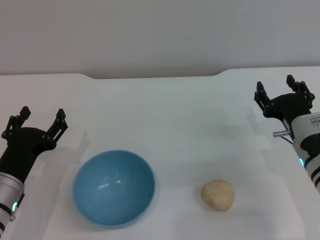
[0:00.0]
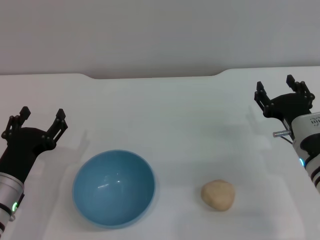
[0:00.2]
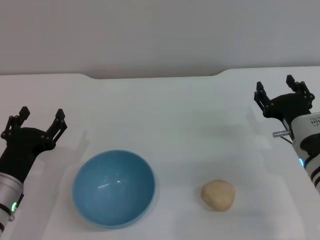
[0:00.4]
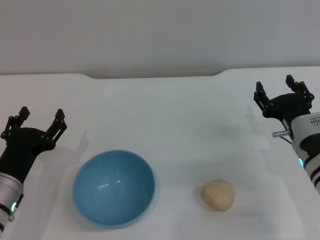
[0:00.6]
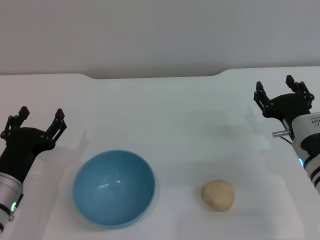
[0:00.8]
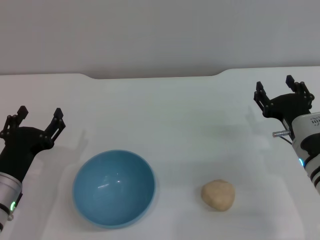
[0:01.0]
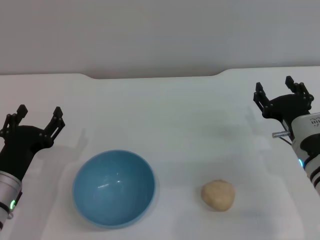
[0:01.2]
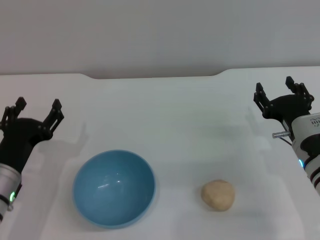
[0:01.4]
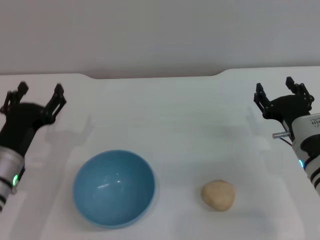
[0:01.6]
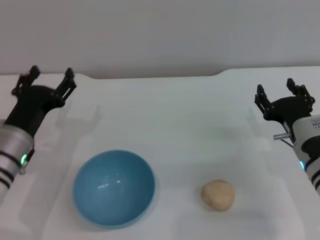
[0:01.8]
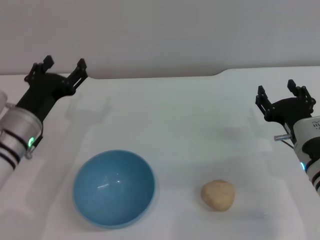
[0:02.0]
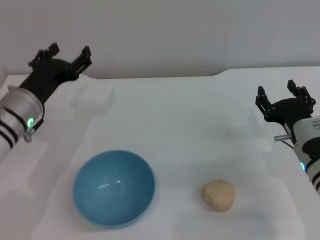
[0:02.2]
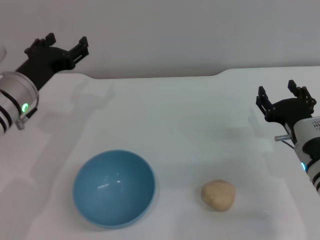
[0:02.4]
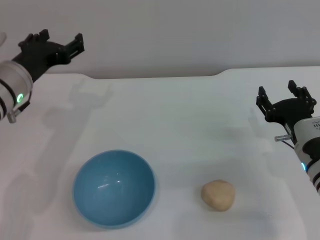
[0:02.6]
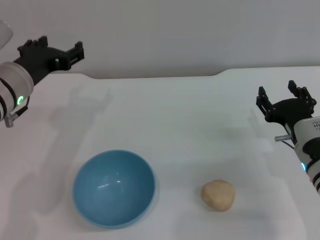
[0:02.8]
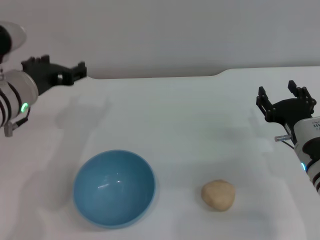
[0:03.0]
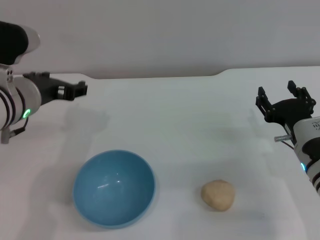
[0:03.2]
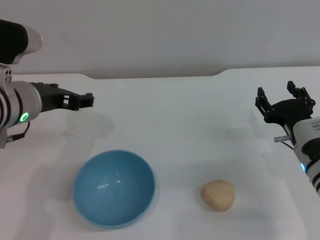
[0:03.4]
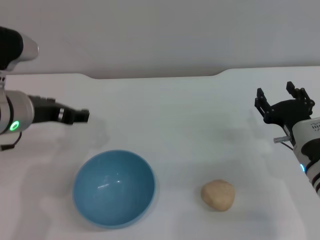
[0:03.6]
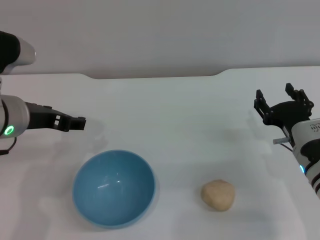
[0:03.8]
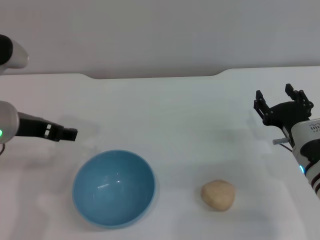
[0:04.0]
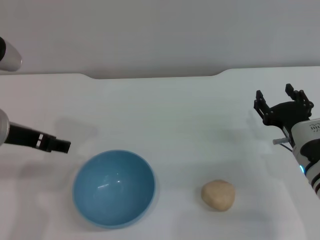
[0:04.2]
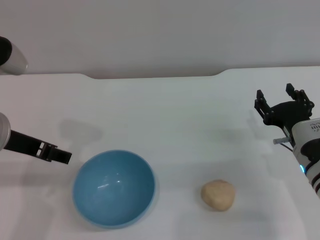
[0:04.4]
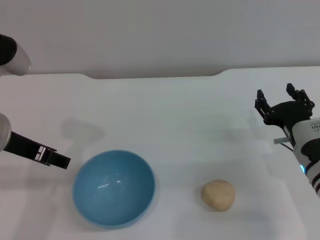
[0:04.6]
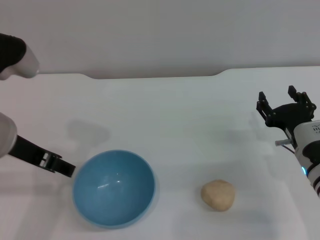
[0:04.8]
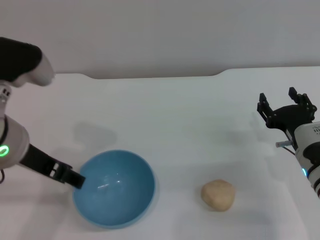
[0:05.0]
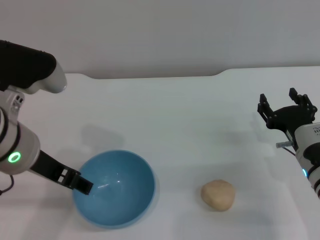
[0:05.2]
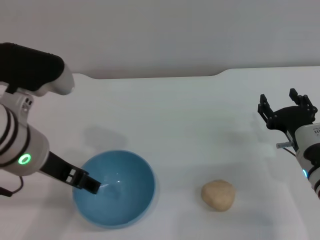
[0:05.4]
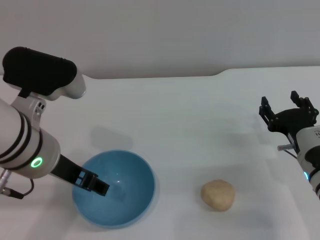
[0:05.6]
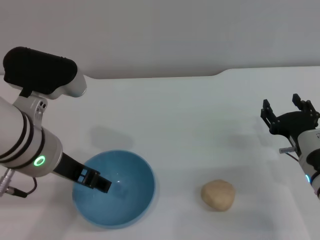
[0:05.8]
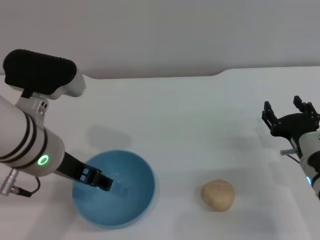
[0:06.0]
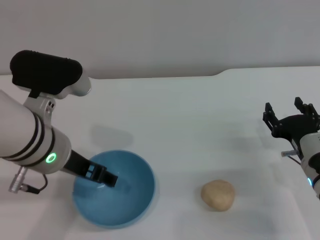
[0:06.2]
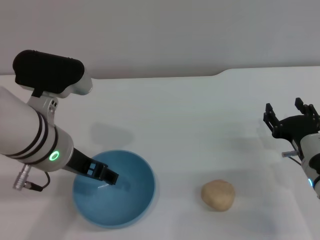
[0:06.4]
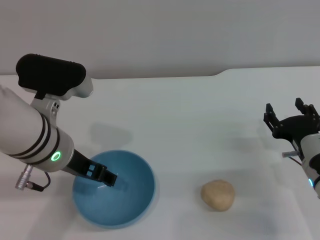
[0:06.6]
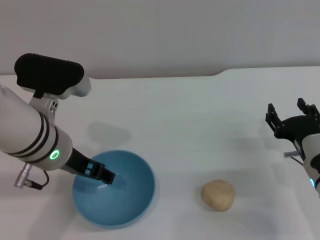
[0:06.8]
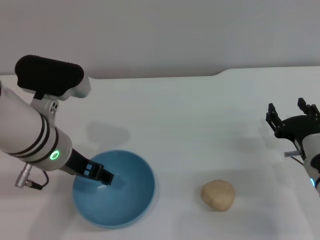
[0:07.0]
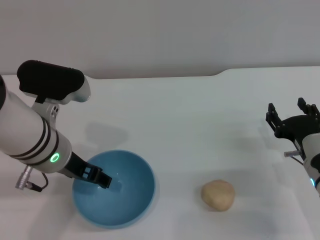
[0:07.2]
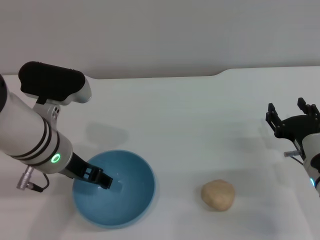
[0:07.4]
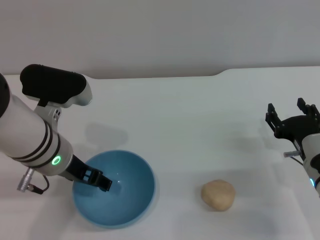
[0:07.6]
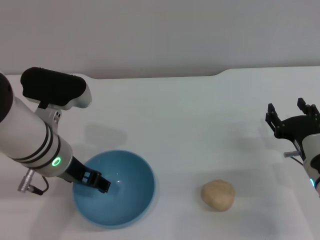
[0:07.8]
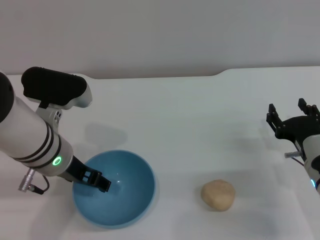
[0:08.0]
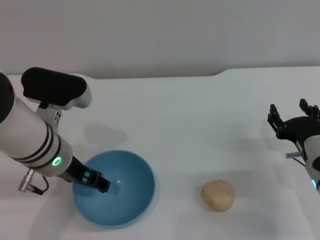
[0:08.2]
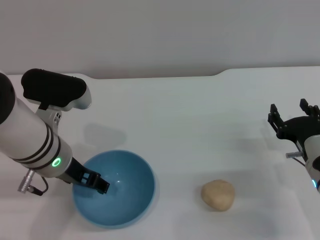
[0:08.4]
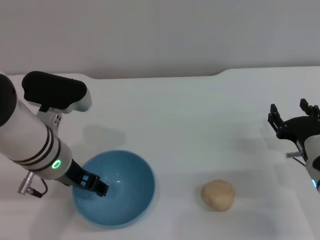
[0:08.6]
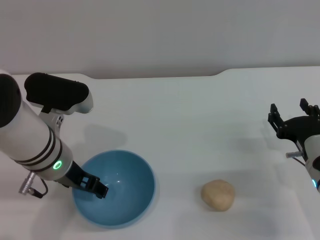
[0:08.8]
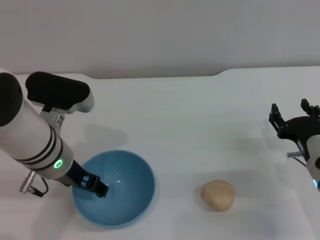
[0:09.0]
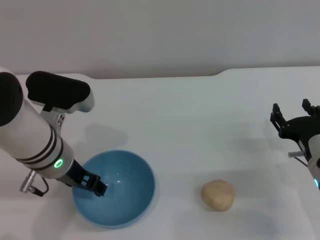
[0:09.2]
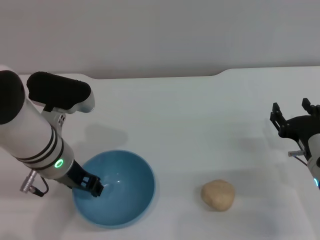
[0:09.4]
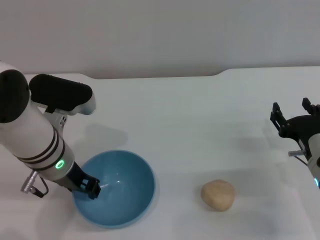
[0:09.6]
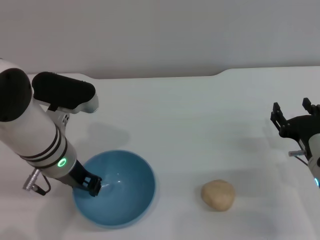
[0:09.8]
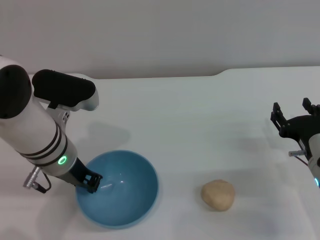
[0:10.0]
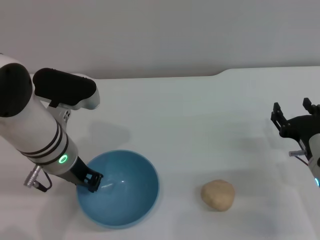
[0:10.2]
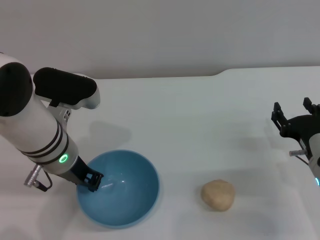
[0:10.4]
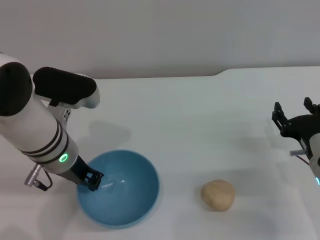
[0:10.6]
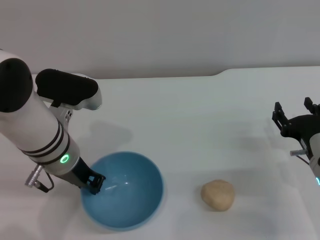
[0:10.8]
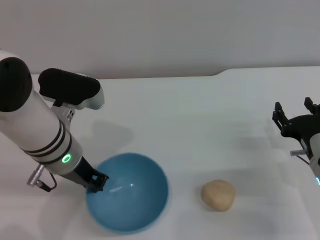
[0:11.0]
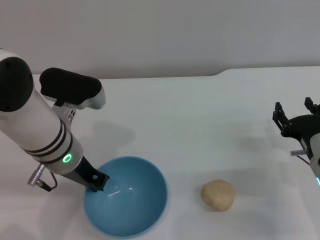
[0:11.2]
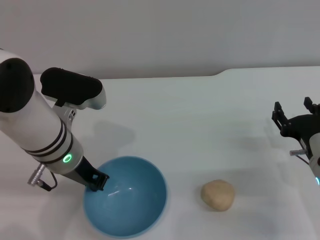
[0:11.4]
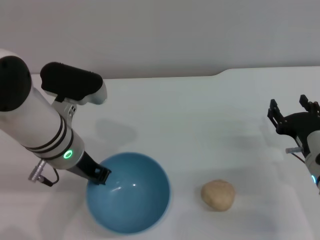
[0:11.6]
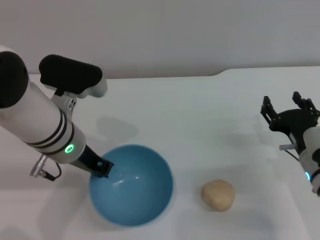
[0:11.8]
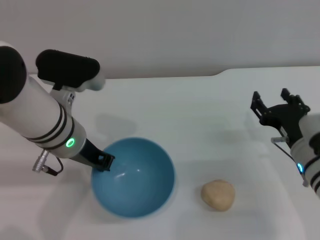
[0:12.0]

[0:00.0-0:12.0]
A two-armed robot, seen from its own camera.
Task of the whole recording: put the egg yolk pastry into the blue bowl and pour it out repeatedly.
0:00.0 to 0:01.6: The grippers move only a little.
0:01.6 to 0:03.0: The left gripper heads upward and forward, covering about 15 cm.
0:03.0 to 0:04.4: The left gripper is displaced backward by approximately 5 cm.
0:04.4 to 0:06.0: The left gripper heads to the right, covering about 5 cm.
0:06.0 to 0:07.6: The left gripper changes place by roughly 5 cm.
0:07.6 to 0:09.0: The grippers stay close to where they were, moving slightly.
0:09.0 to 0:10.4: The left gripper closes up.
0:10.4 to 0:12.0: The grippers move only a little.

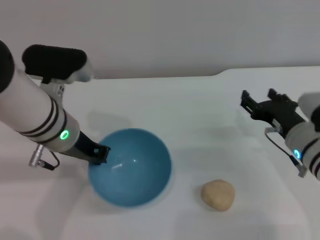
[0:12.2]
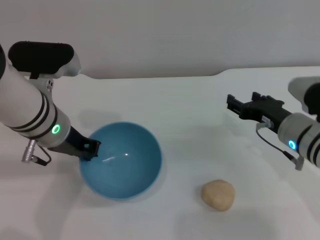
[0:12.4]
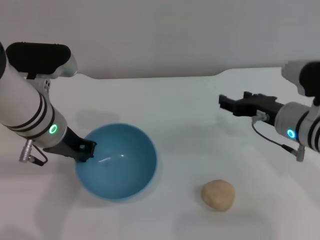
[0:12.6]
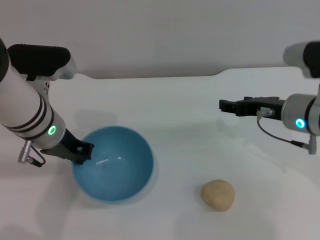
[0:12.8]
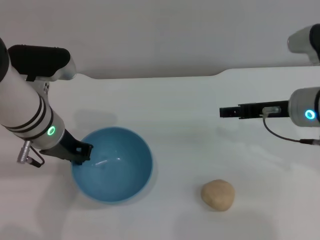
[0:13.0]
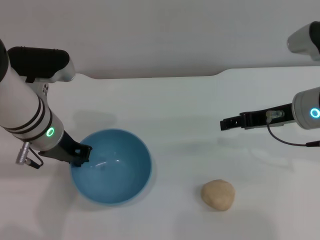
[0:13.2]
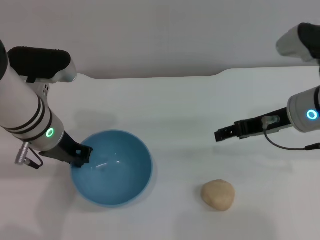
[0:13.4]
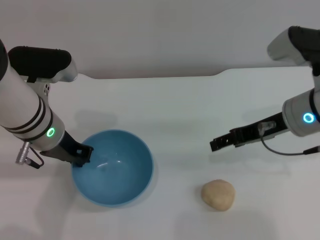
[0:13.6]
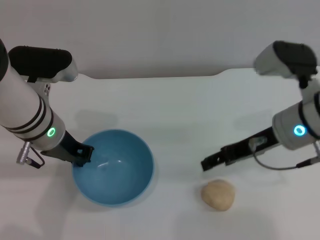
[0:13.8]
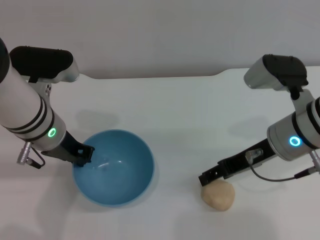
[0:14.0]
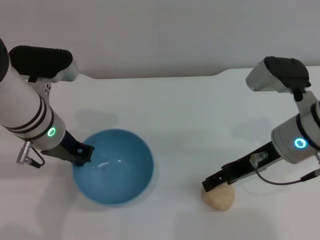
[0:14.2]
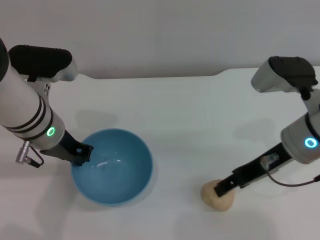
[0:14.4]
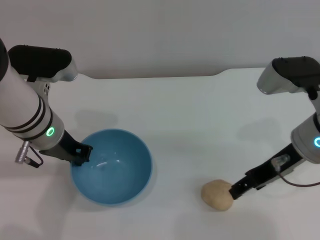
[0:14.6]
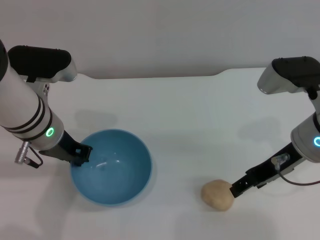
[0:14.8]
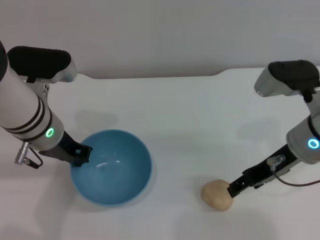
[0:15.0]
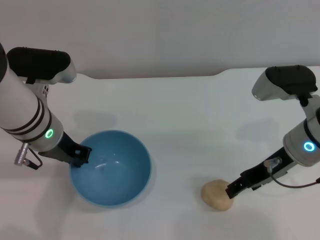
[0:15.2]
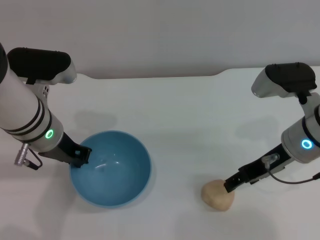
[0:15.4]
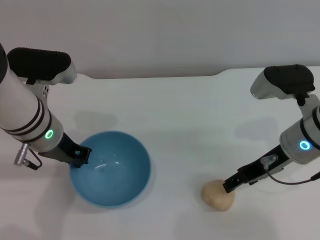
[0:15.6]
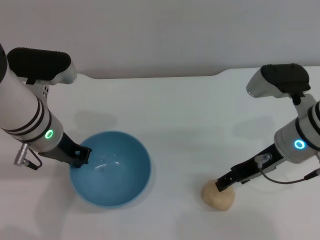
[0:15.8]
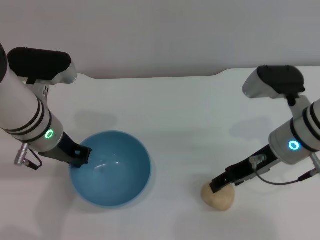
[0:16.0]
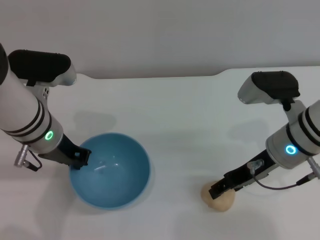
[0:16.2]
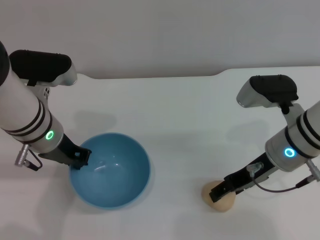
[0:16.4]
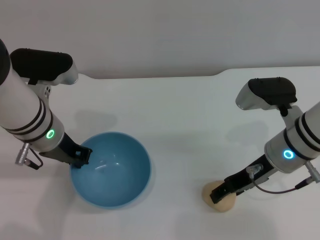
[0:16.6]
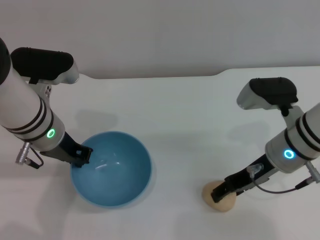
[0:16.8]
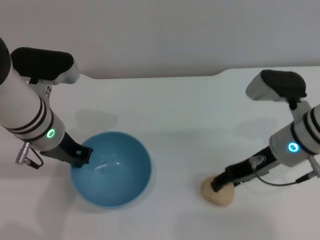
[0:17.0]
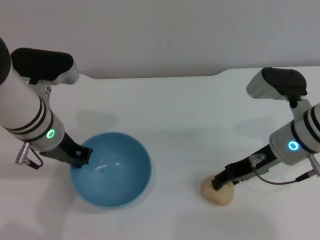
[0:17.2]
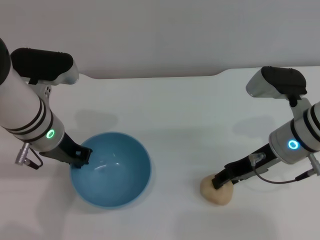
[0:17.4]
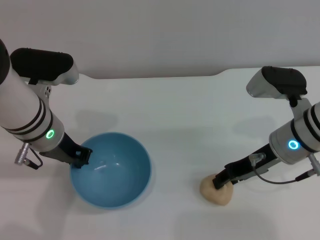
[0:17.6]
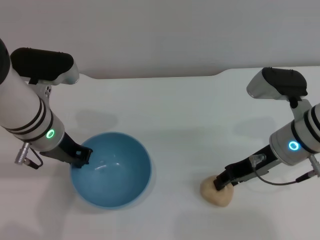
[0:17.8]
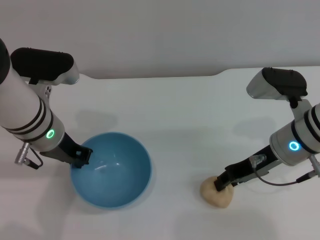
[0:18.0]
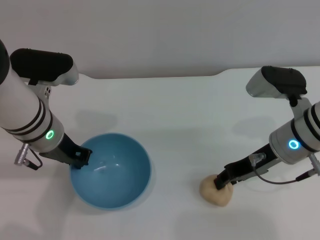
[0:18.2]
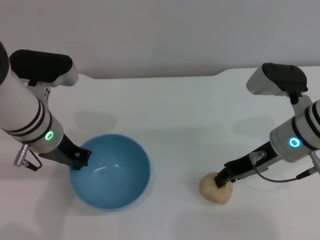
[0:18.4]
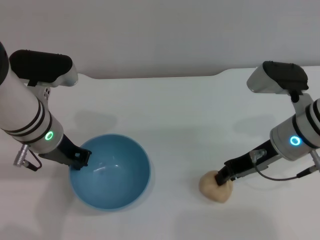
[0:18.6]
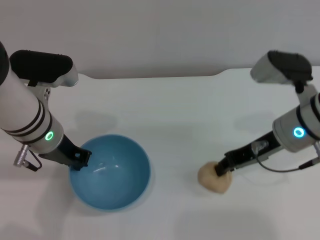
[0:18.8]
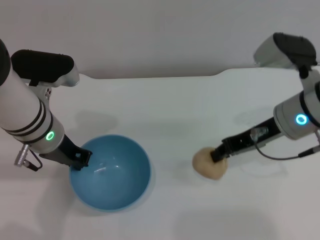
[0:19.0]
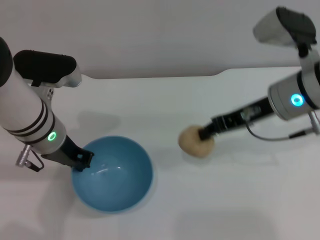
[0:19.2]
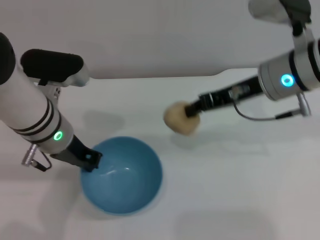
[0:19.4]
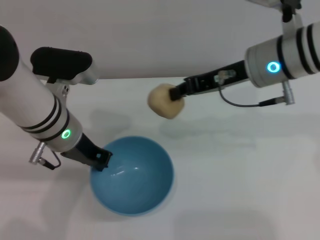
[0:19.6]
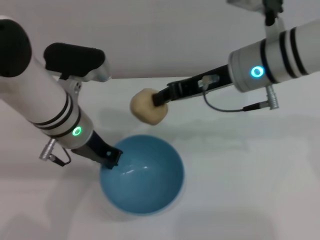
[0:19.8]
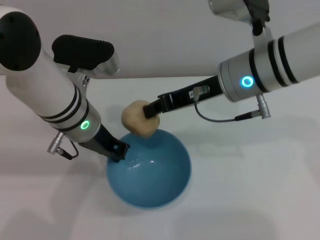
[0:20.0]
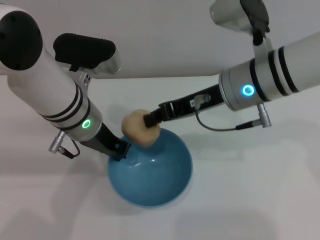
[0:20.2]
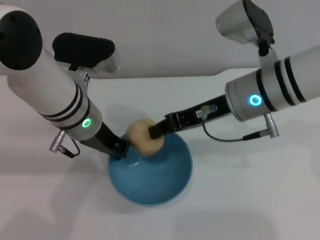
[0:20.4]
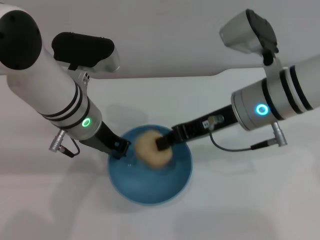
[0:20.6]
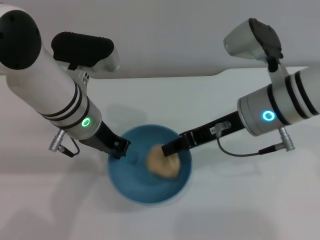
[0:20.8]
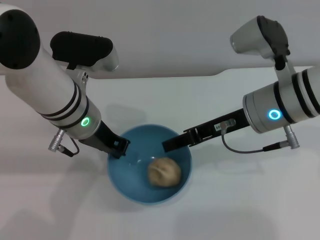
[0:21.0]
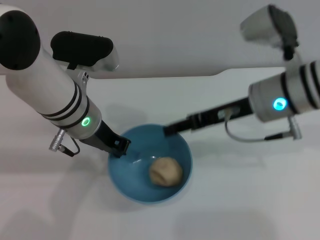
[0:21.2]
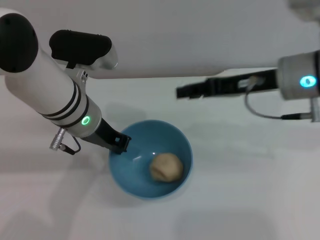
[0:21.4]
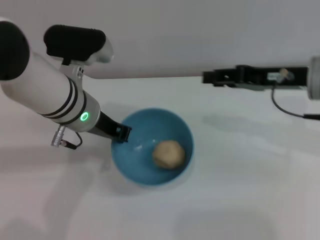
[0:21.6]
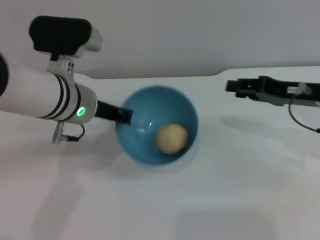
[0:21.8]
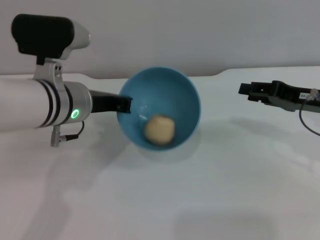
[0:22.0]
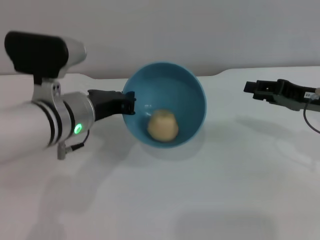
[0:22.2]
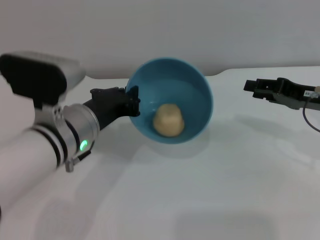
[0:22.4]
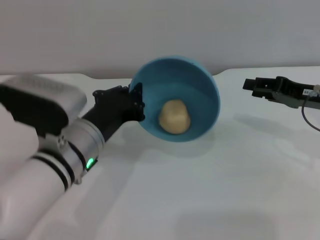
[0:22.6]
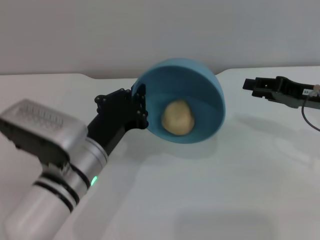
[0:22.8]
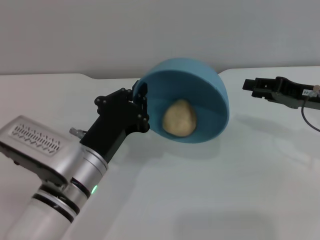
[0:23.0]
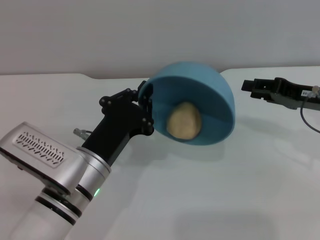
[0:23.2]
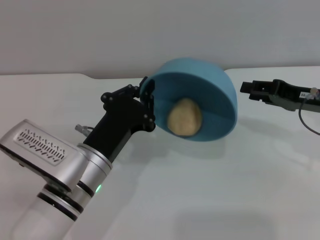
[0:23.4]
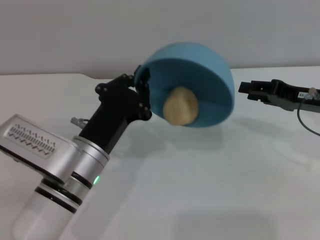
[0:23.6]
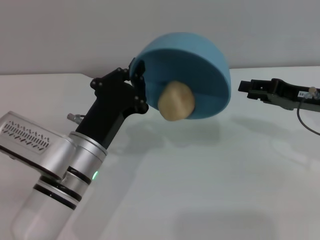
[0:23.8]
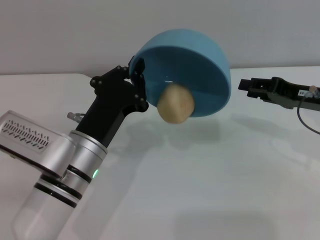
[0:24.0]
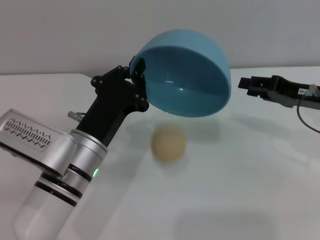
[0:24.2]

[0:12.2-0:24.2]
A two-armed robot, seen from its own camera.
Task of the whole recording: put the egg yolk pastry into the blue bowl and pour it out repeatedly.
Step, 0:12.8 to 0:18.8: Pick up the egg yolk pastry with the right gripper.
Step, 0:19.0 to 0:21.2: Place the egg yolk pastry into the bowl.
0:12.2 to 0:13.8: The right gripper is displaced upward by some 10 cm.
0:13.8 to 0:16.6: There are only small adjustments of the grippers.
0:16.6 to 0:18.2: The right gripper closes its fingers.
0:18.2 to 0:19.8: The right gripper heads upward and to the left, covering approximately 10 cm, and closes up.
0:19.8 to 0:21.2: The right gripper opens.
0:21.2 to 0:22.6: The right gripper shifts roughly 15 cm to the right. The left gripper is displaced backward by about 10 cm.
